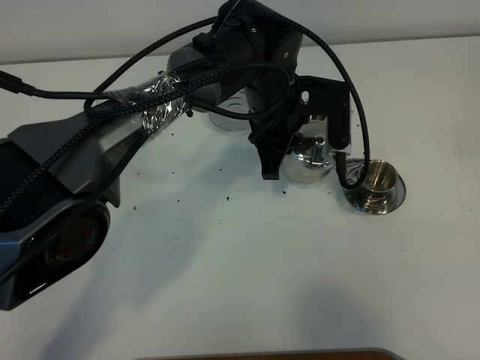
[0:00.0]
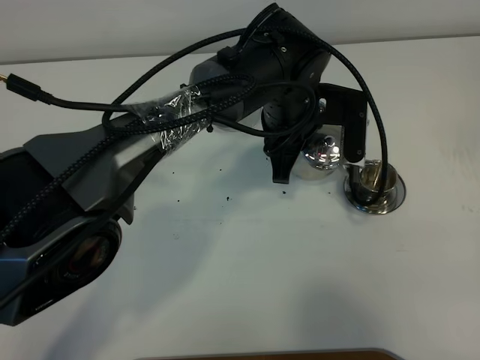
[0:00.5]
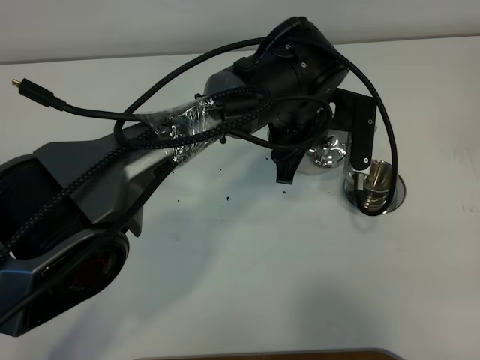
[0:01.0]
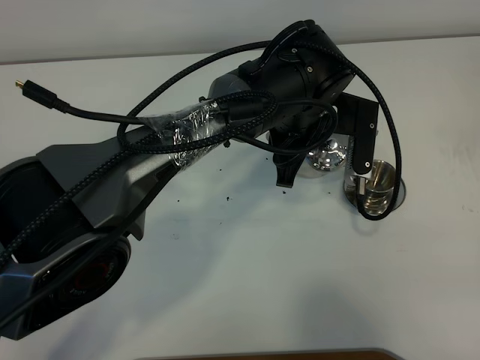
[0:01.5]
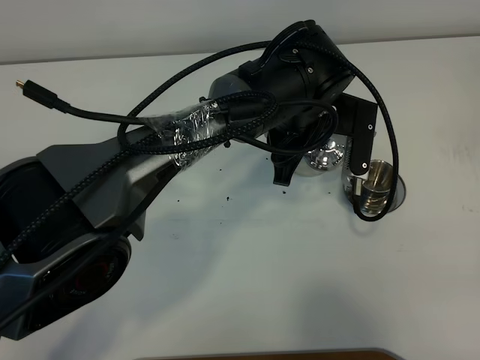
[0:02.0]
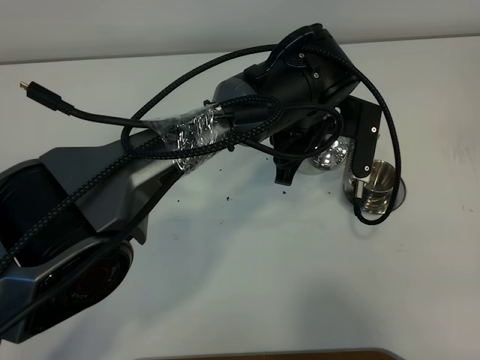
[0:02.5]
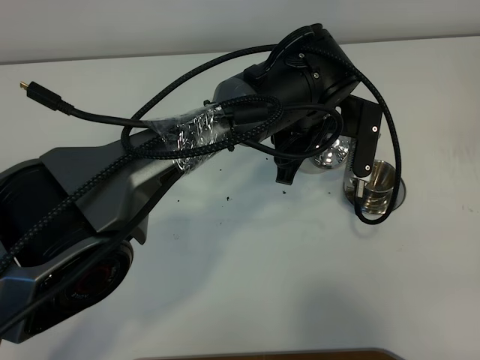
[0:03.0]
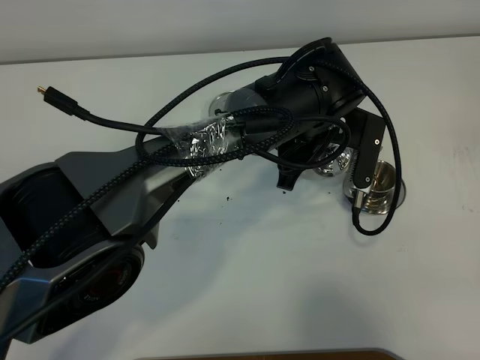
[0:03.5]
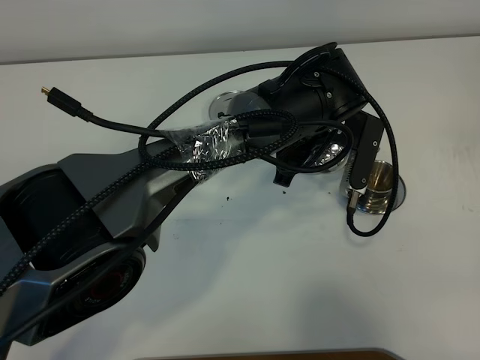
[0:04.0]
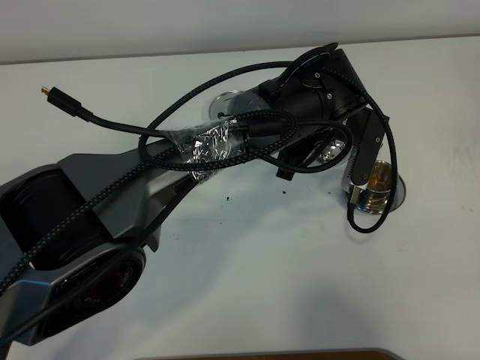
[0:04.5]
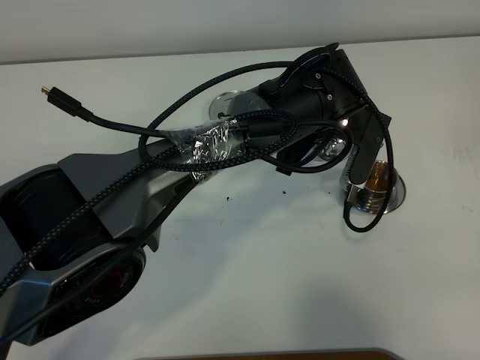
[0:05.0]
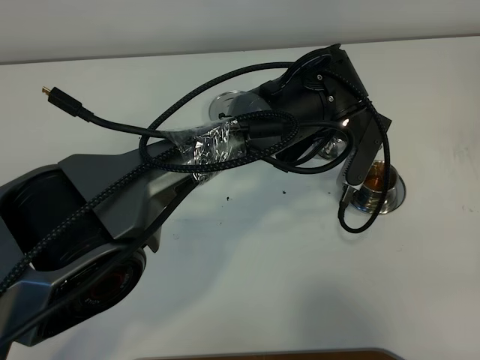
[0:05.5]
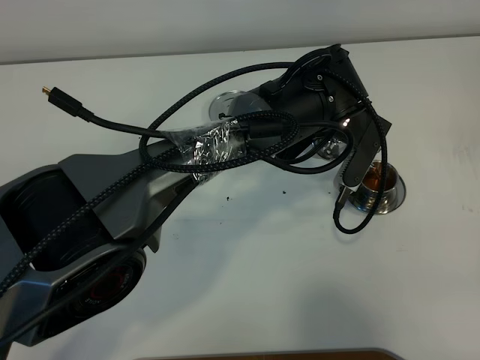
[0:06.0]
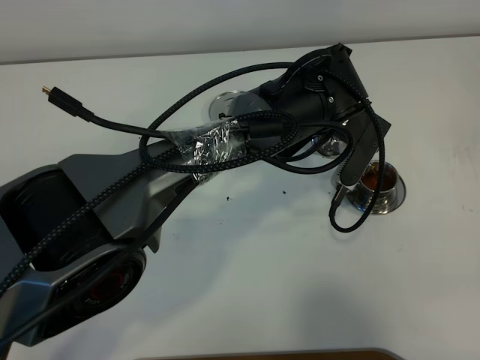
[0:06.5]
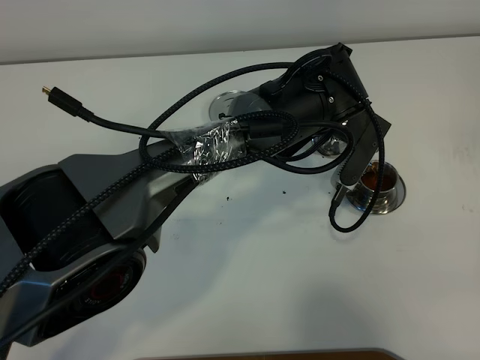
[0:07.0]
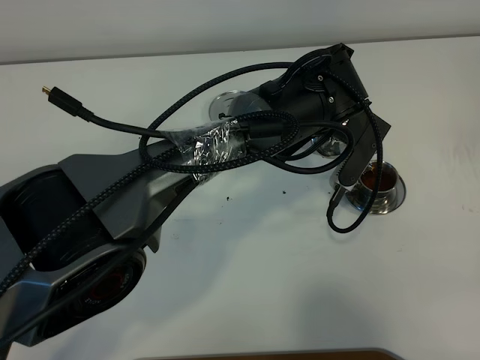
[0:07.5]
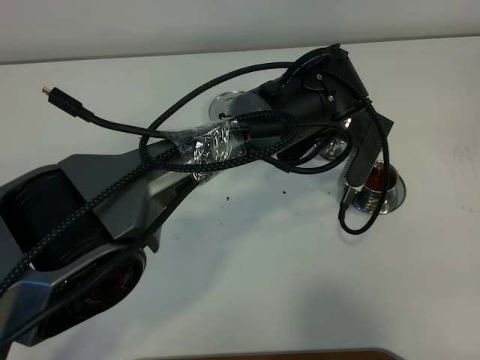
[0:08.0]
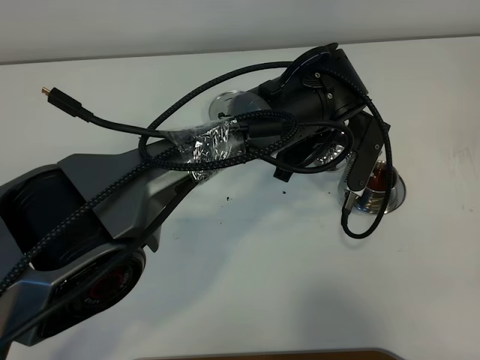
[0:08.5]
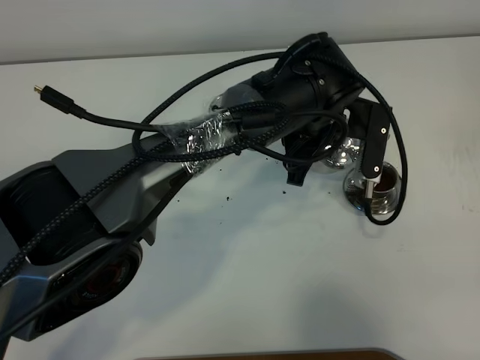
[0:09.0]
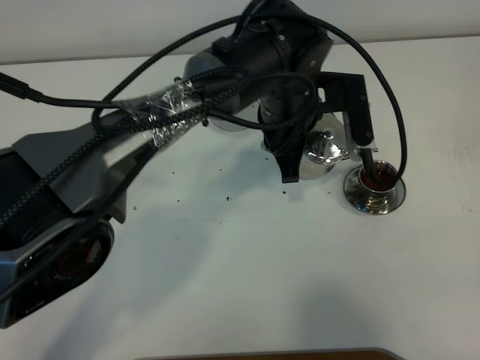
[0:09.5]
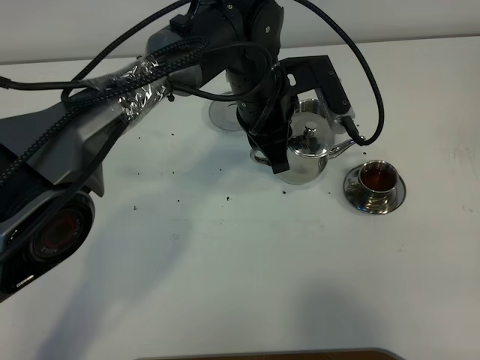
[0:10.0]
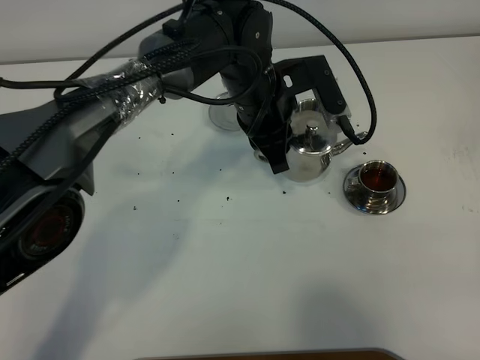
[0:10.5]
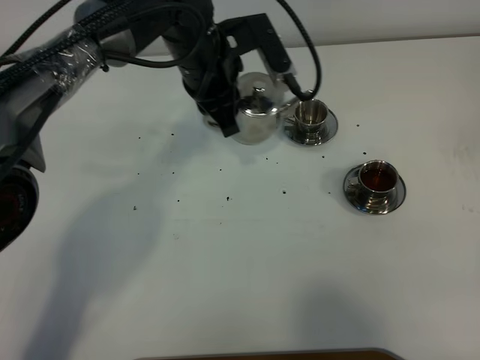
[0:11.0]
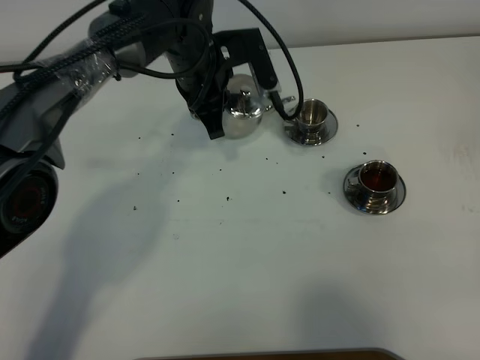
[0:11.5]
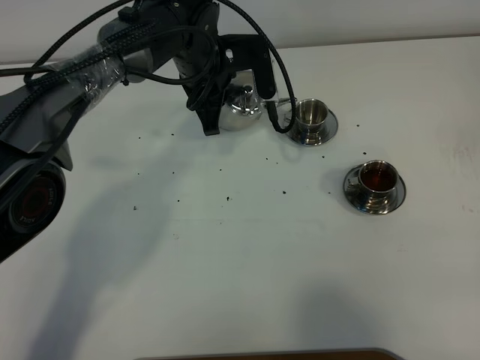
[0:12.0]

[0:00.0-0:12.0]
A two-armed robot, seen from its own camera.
Task of the whole recording: grasp the stainless steel teapot and pour the tea into the two stainless steel teacups one by one, put the stainless steel teapot back in its original place.
Step, 0:00.0 to 0:09.0: Pour tea into the teacup with the left gripper.
0:02.0 to 0:04.0: The grippers make only small movements.
0:04.0 to 0:06.0: The grippers make only small movements.
0:06.0 to 0:08.0: Neither gripper changes place.
0:08.0 to 0:10.0: The left gripper heads to the left, covering about 5 cm.
0:10.0 to 0:12.0: The left gripper goes about 10 cm to the left and forward.

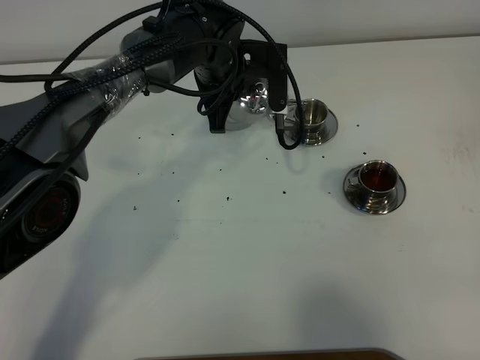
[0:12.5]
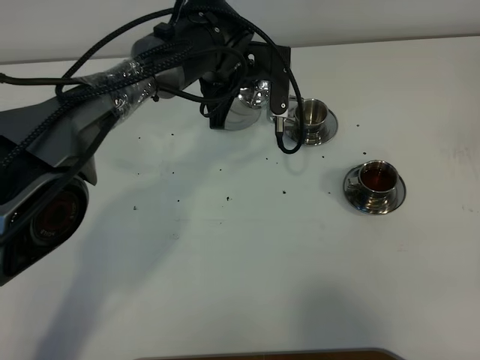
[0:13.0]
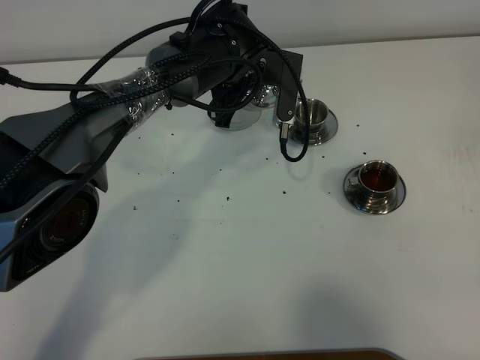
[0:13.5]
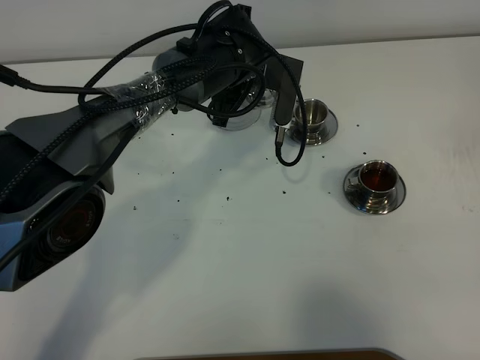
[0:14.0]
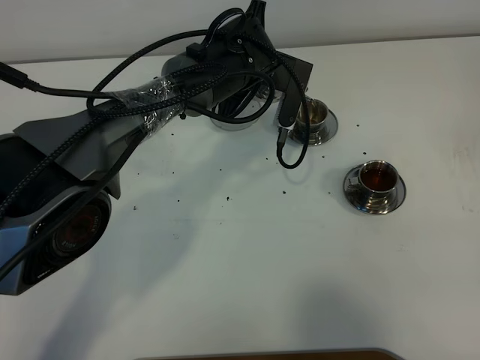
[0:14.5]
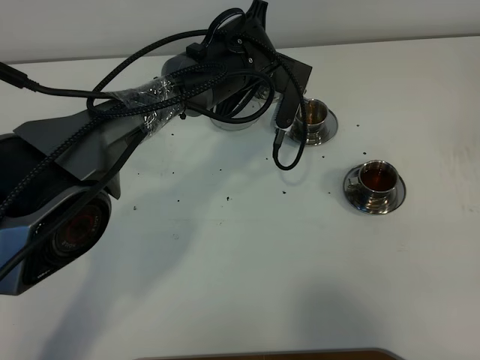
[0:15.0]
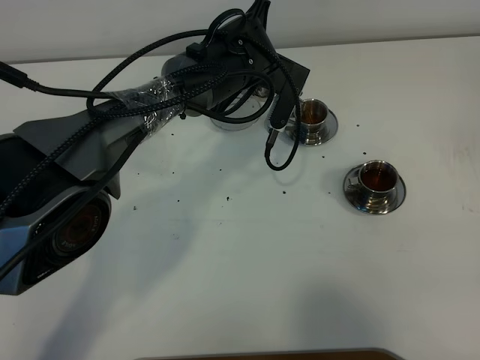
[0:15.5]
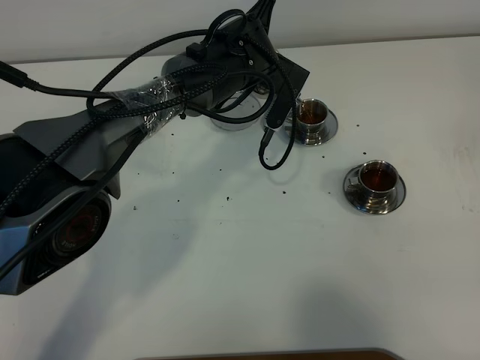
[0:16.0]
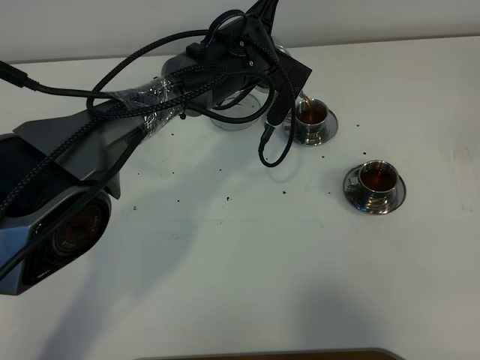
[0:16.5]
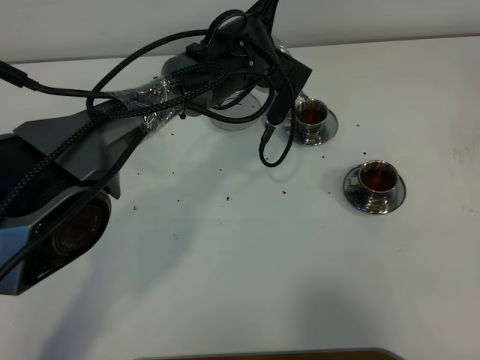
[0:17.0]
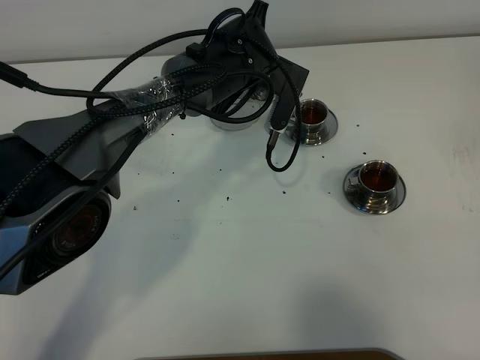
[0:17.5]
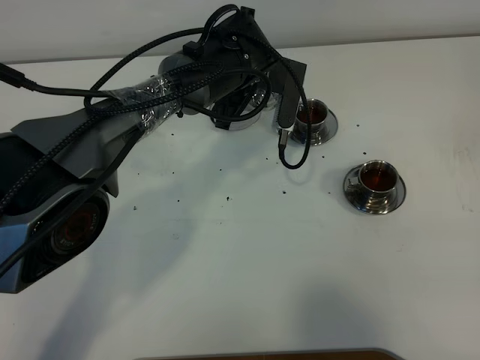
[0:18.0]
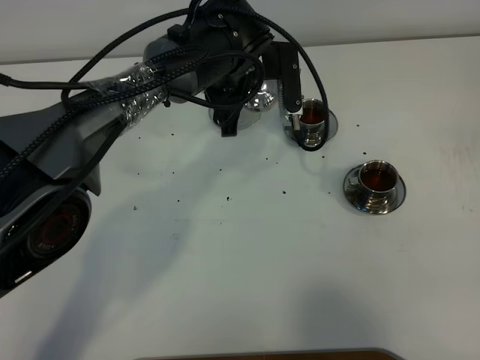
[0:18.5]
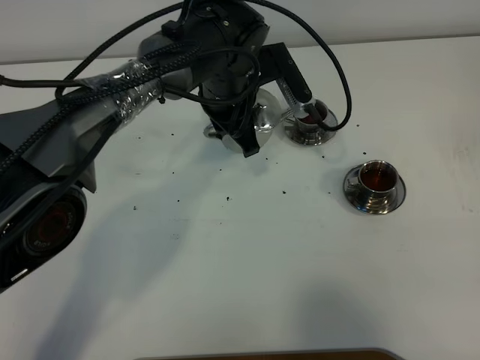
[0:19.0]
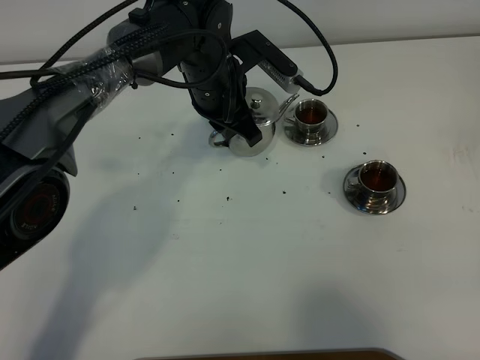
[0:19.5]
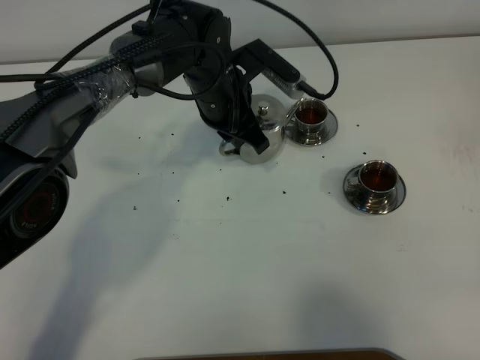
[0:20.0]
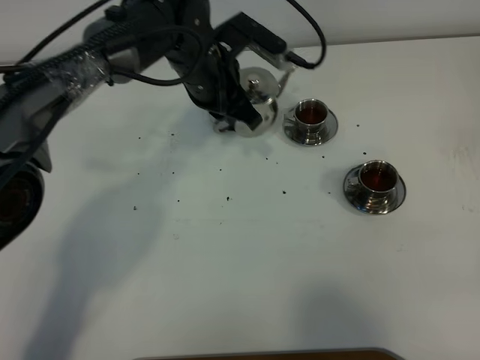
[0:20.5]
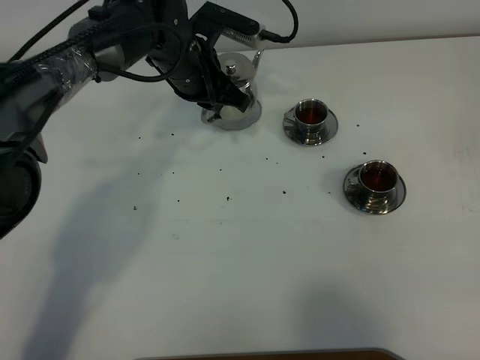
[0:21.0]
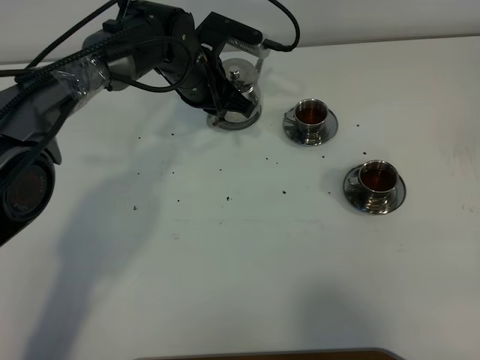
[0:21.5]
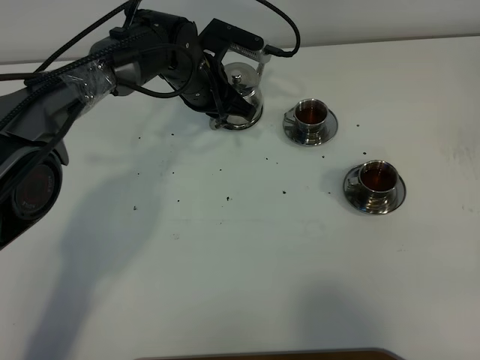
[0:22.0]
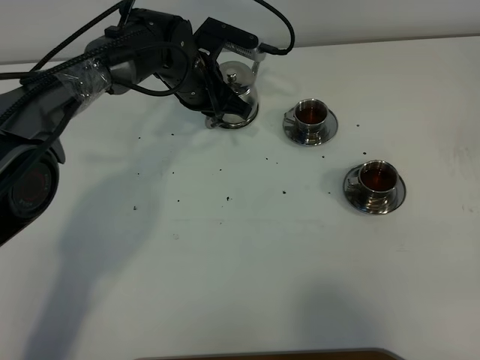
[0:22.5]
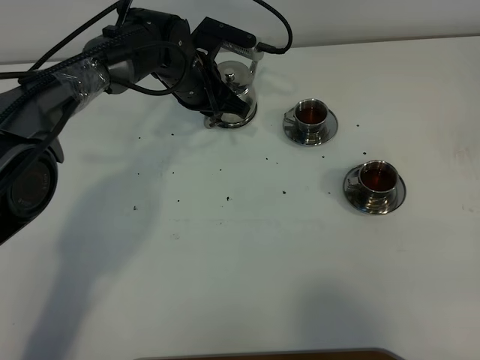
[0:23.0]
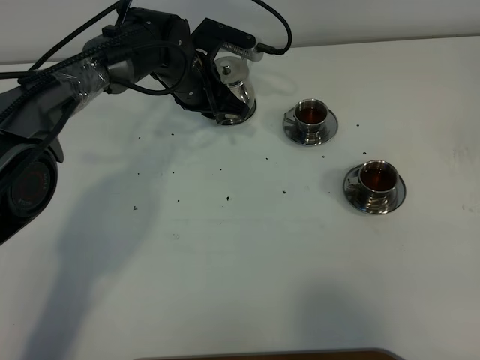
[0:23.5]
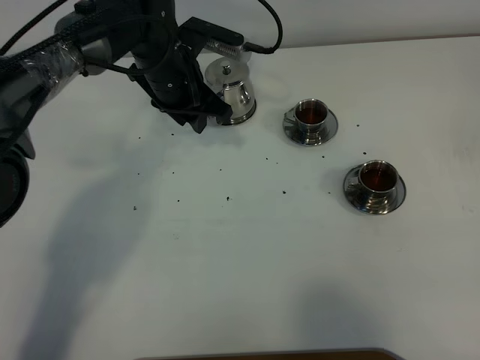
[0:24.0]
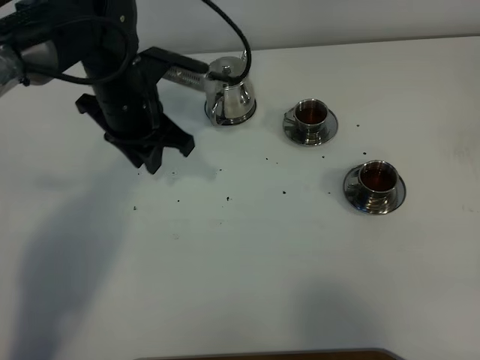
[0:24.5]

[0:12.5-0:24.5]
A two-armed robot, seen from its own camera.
Task of the whole recording: grasp the stainless steel teapot and pour the tea into the two stainless steel teacups one by one, put the stainless steel teapot back in its original place.
Step, 0:12.5 to 0:18.0: Pour tea into the teacup with the left gripper.
0:14.5 to 0:16.5: The grippers stay close to where they were, moving slightly.
0:20.5 to 0:22.5: The left gripper shifts by roughly 5 cm.
0:22.5 to 0:24.5: The left gripper moves backward, upward and to the left, about 15 cm.

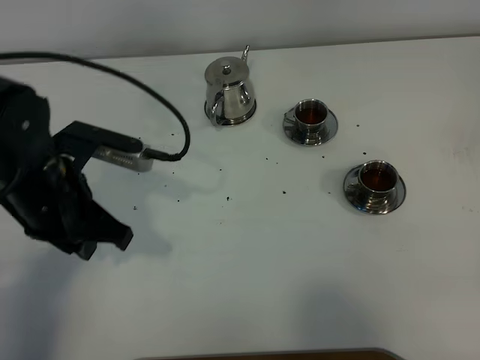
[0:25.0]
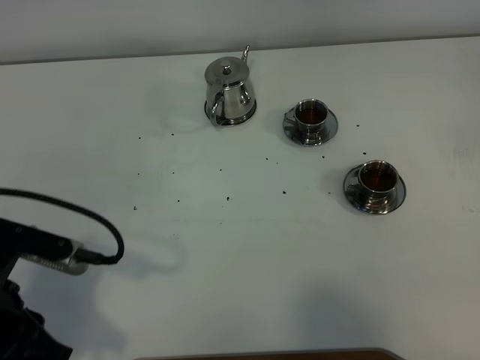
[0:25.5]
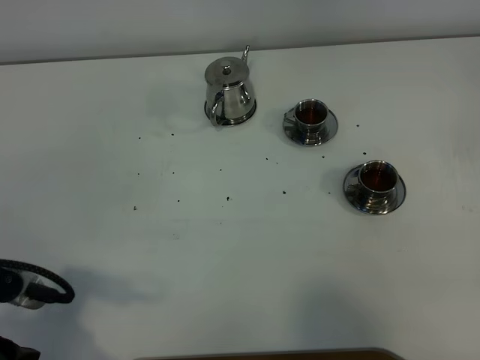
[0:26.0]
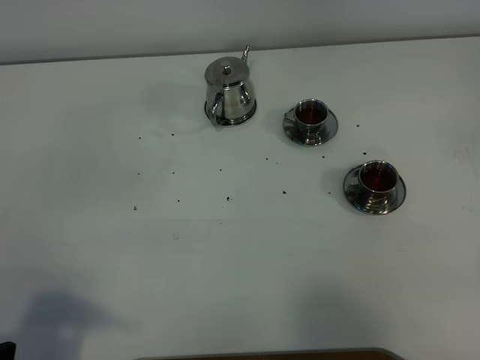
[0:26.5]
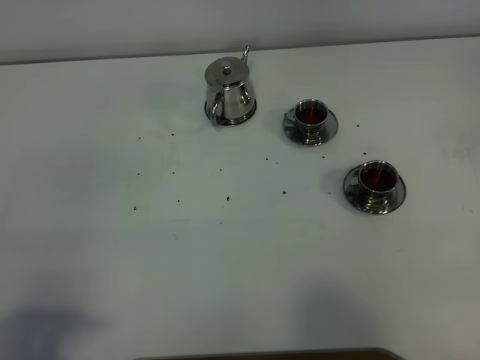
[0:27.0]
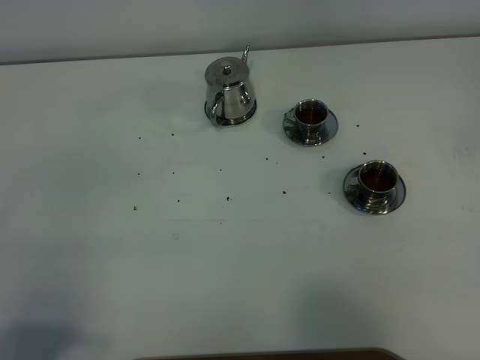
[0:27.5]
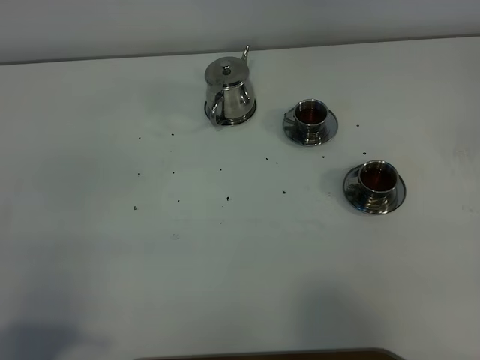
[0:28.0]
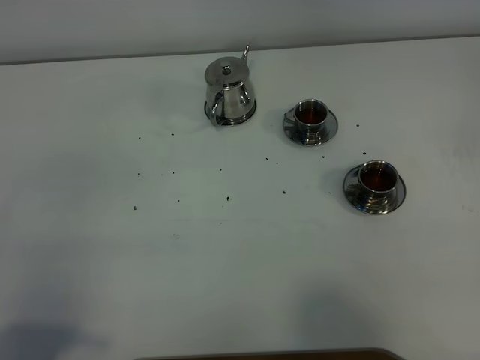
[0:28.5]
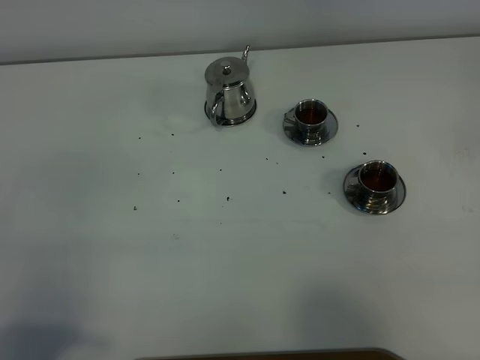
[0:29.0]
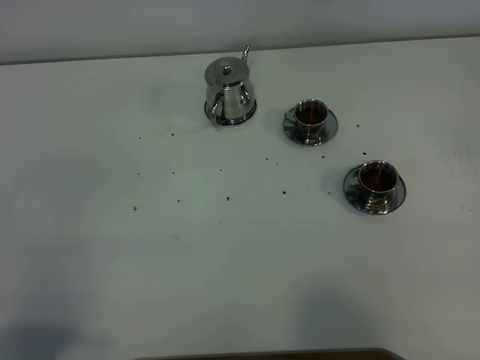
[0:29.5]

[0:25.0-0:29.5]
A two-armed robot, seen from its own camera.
Task of the whole recording: grasp the stainless steel teapot and pour the tea into the two stainless steel teacups one by one, put the stainless steel teapot back in its original place.
0:25.0 to 0:27.0: The left gripper goes some 25 cm backward, and opens up.
